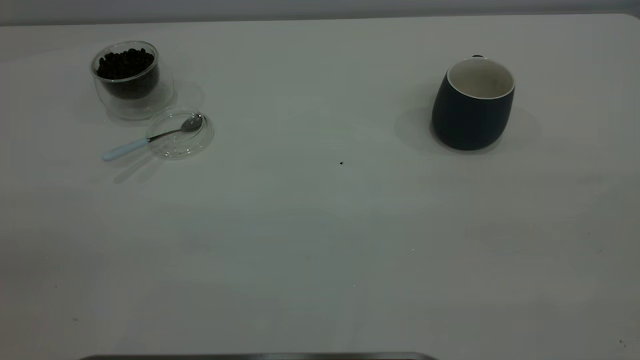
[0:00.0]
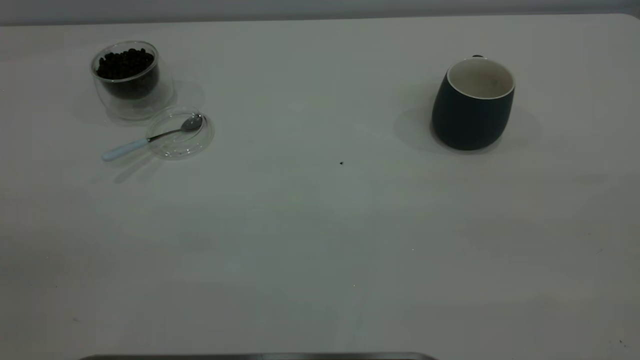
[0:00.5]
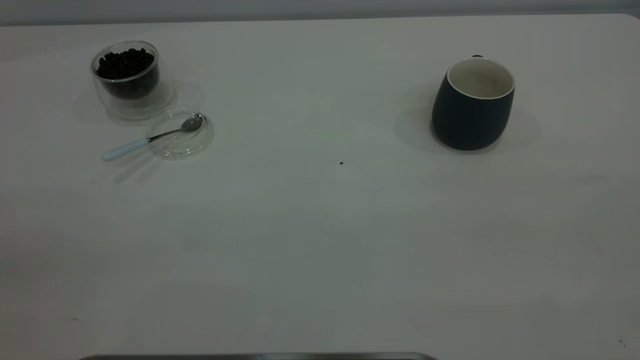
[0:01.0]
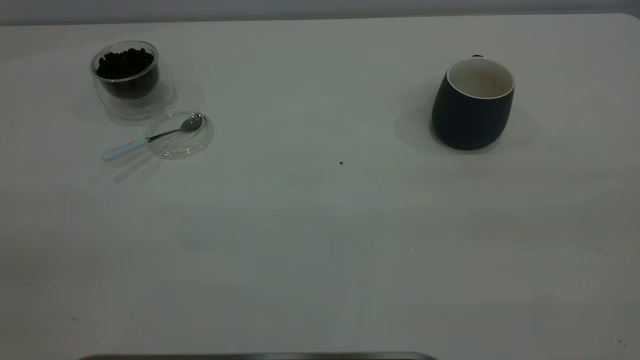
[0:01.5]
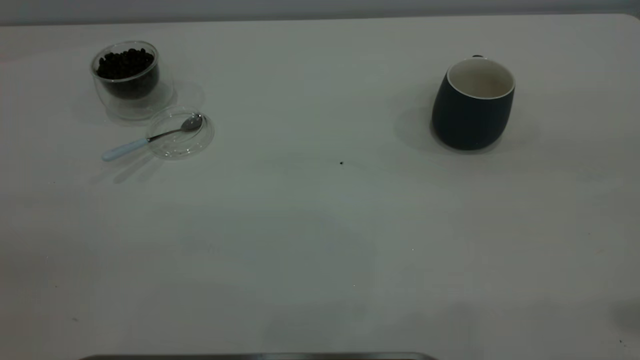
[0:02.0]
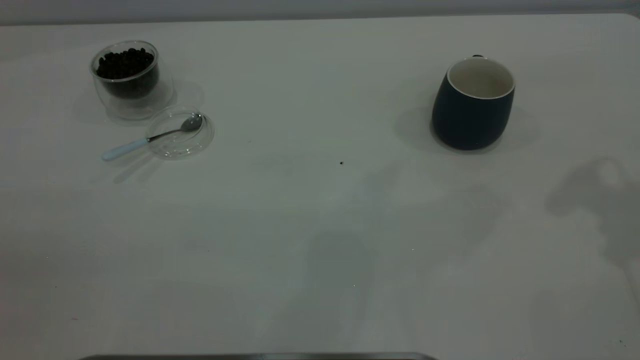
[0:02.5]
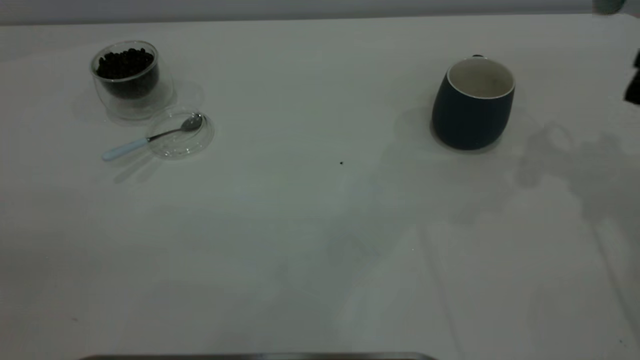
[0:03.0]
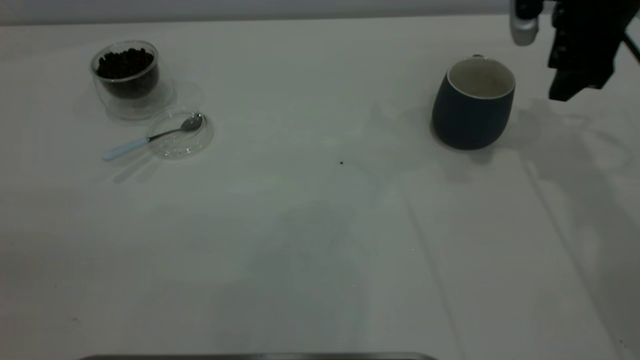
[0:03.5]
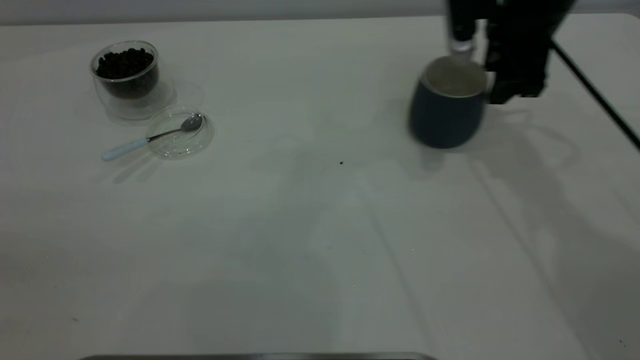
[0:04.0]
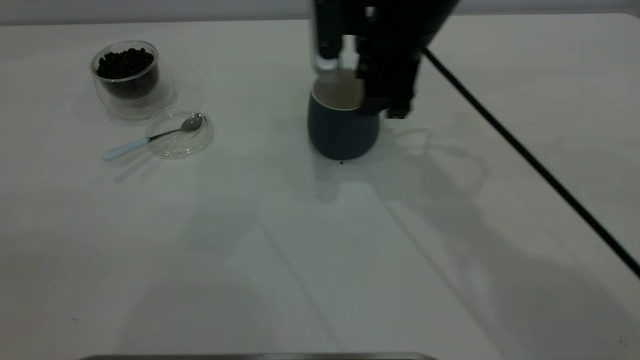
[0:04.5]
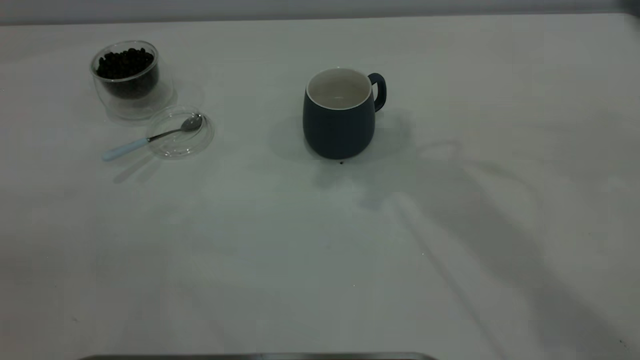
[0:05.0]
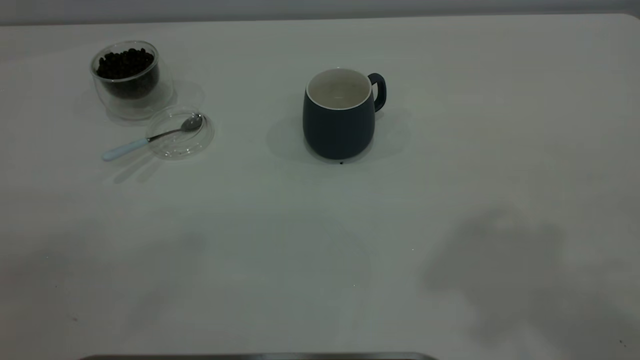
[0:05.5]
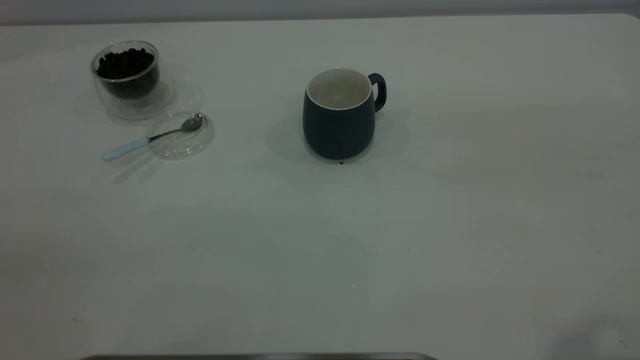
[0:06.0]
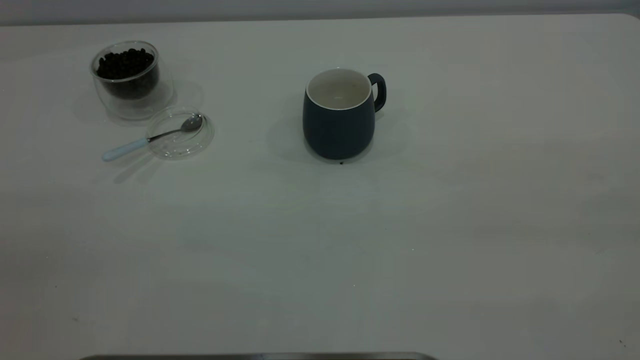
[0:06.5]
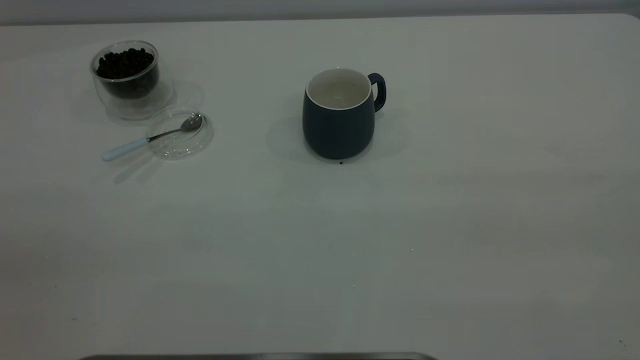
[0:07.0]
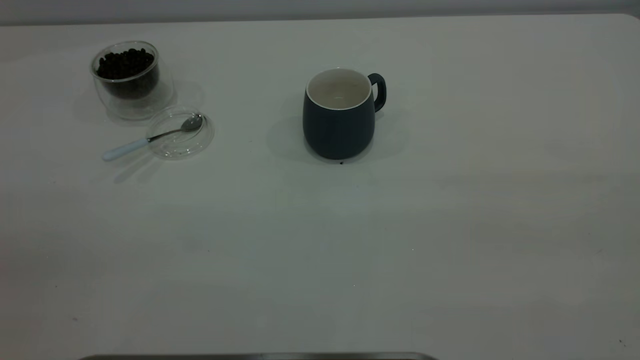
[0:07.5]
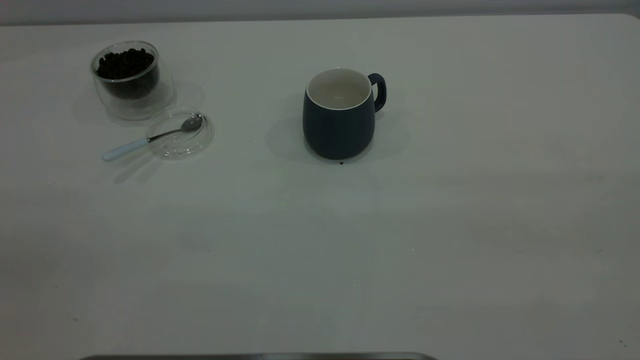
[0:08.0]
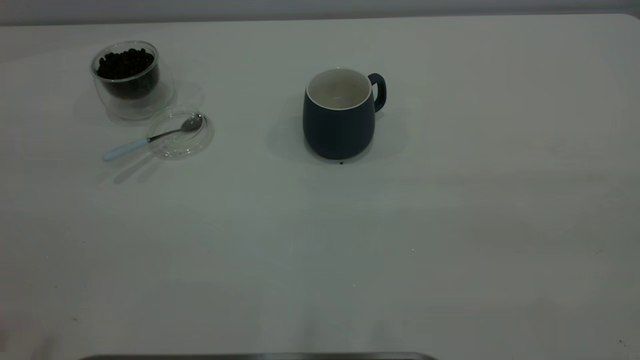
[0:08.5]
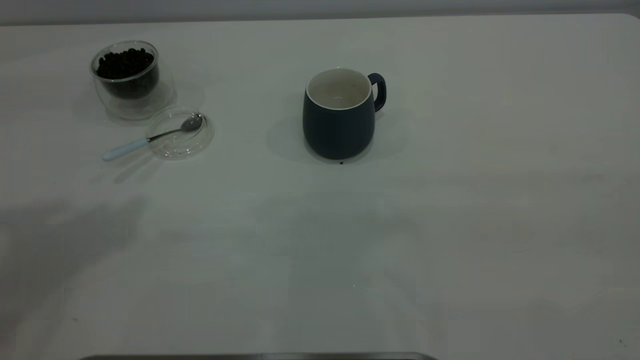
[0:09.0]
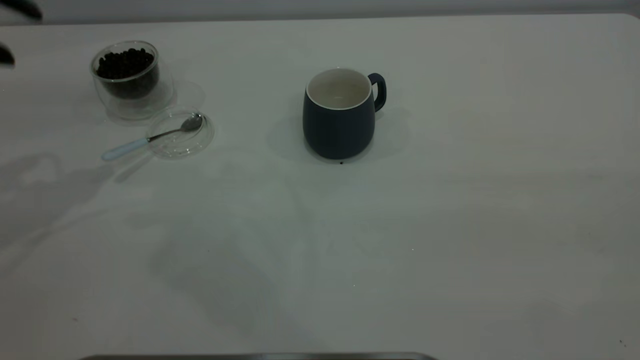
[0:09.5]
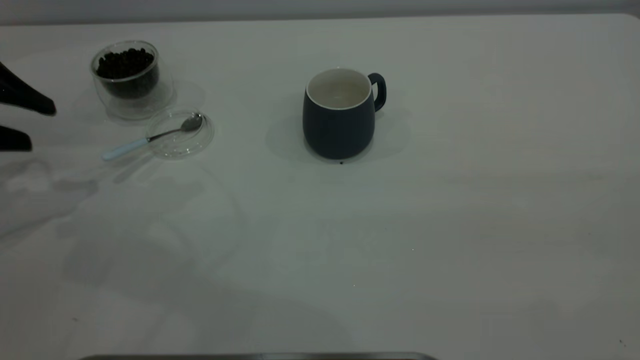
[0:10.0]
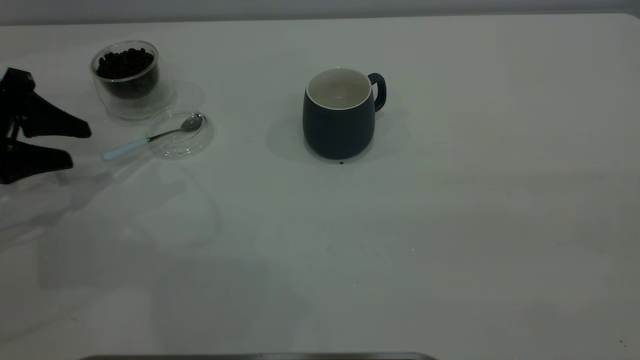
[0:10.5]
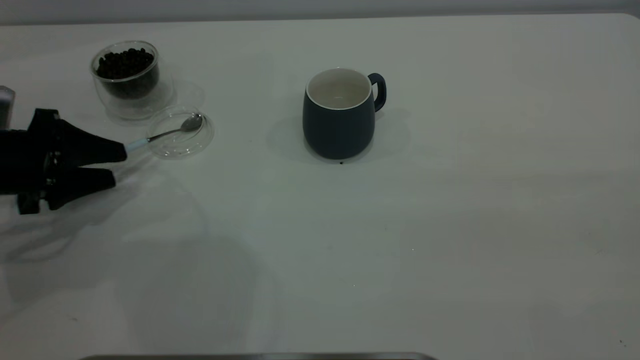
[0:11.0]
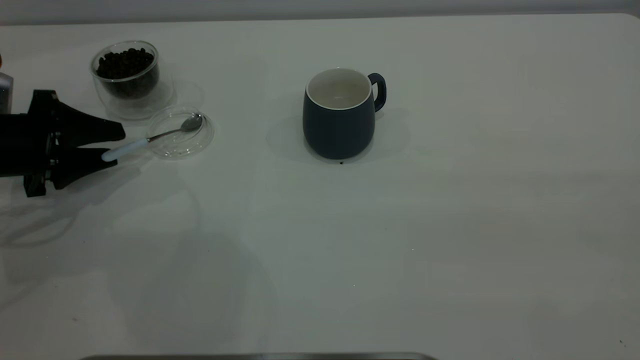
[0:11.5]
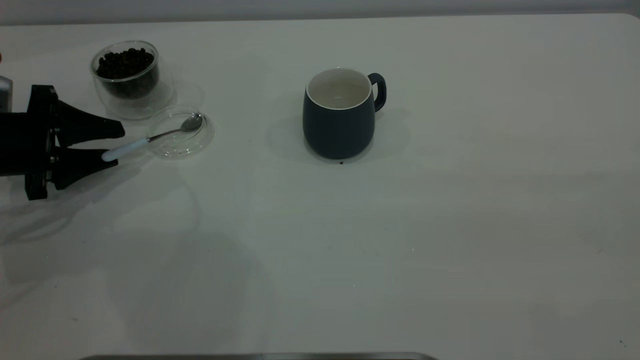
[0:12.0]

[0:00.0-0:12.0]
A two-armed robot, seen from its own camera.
Task of the whole recording: the right gripper place the grey cup in the center of the table, the left gripper take the blue spoon from the cup lid and scoop out the coffee beans from the coffee cup and put them into the grey cup, the left gripper put the spoon back into the cup lid.
Step, 0:00.0 to 0:04.5: Move the cup to the center of view.
0:02.0 to 0:04.0: The right gripper moves forward, downward and to the left, roughly 35 cm.
0:04.0 to 0:06.0: The right gripper goes roughly 40 cm backward and upward.
0:08.0 to 0:10.0: The left gripper heads forward and downward, covering approximately 35 cm.
0:10.0 to 0:12.0: The left gripper shifts some 10 cm downward.

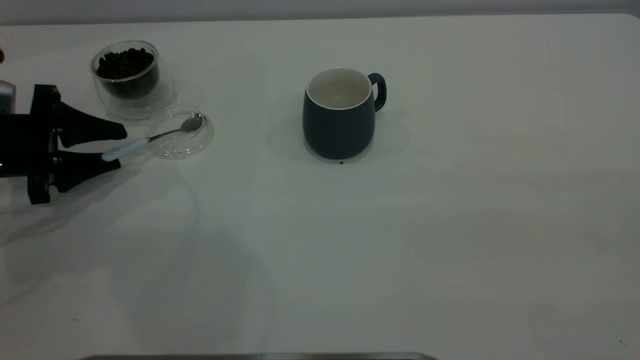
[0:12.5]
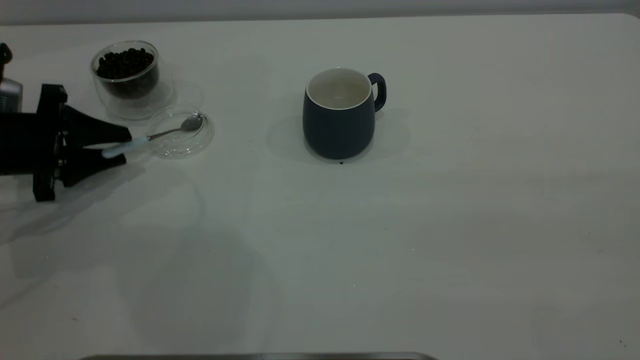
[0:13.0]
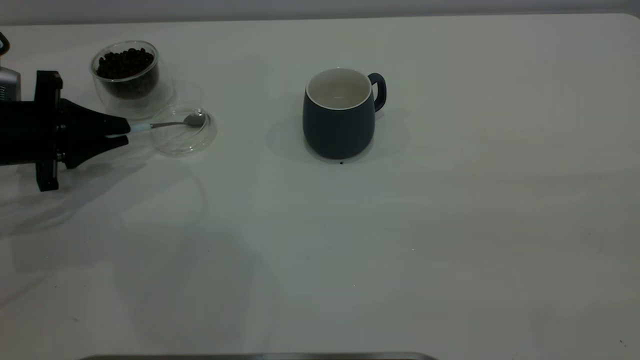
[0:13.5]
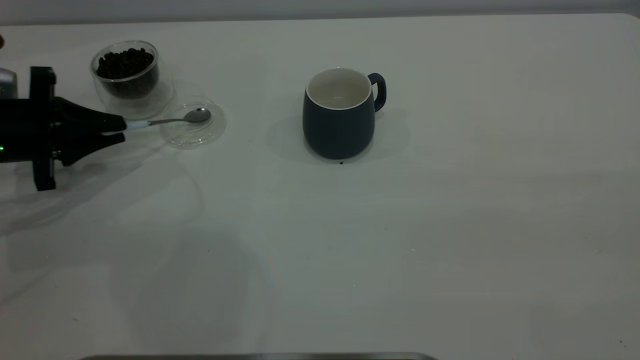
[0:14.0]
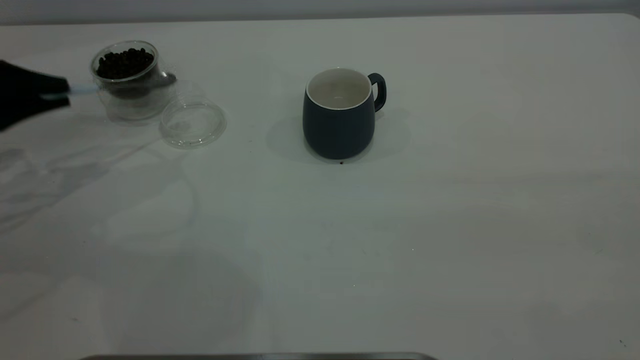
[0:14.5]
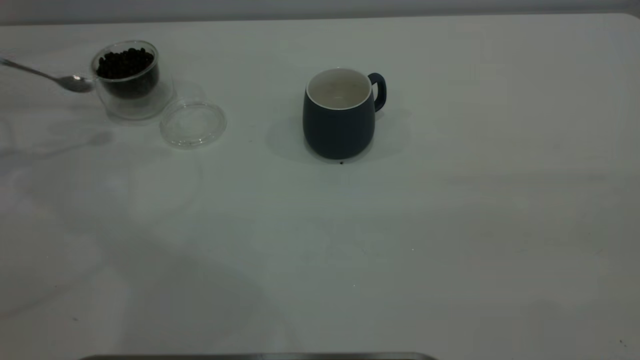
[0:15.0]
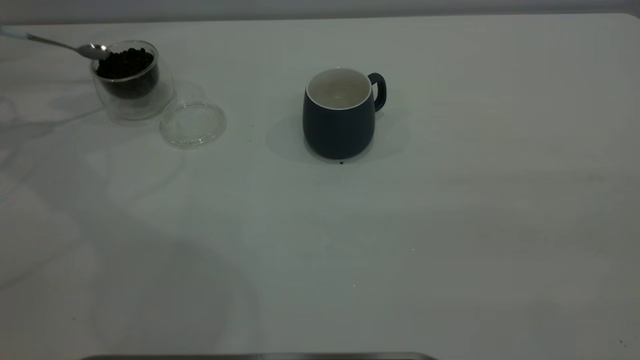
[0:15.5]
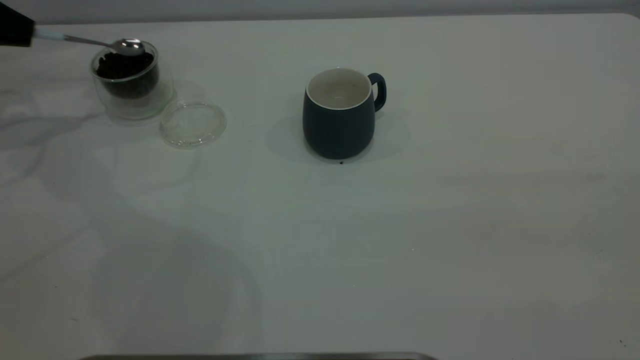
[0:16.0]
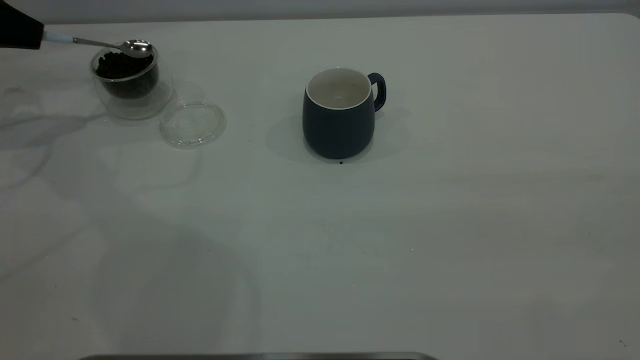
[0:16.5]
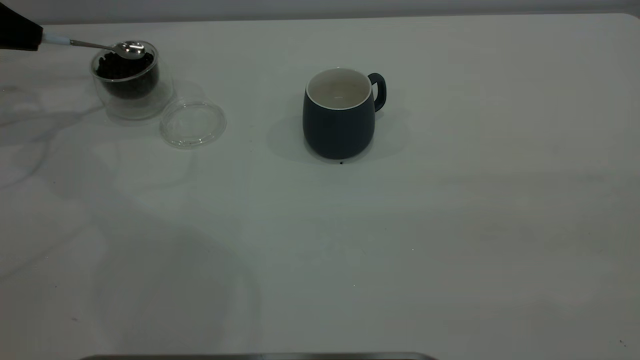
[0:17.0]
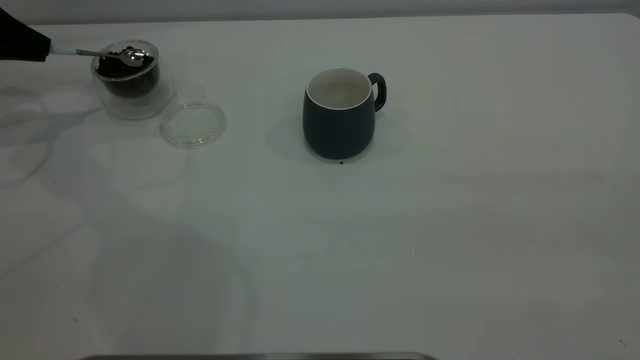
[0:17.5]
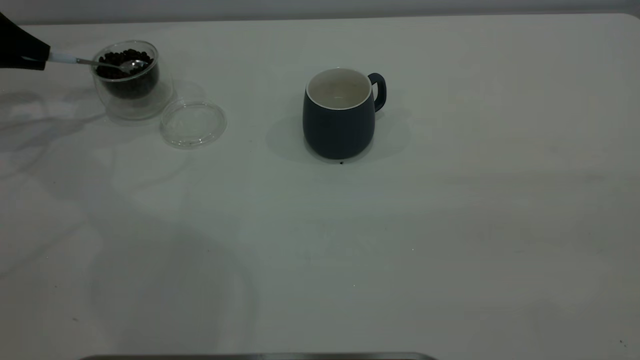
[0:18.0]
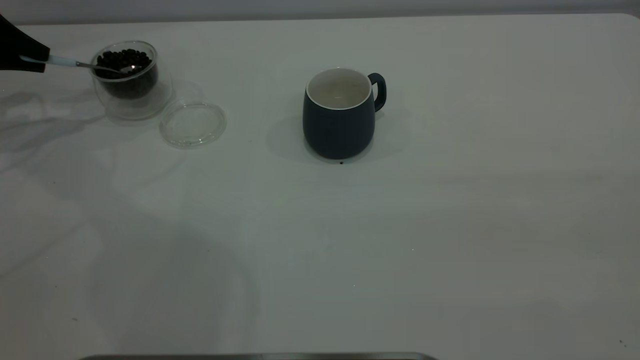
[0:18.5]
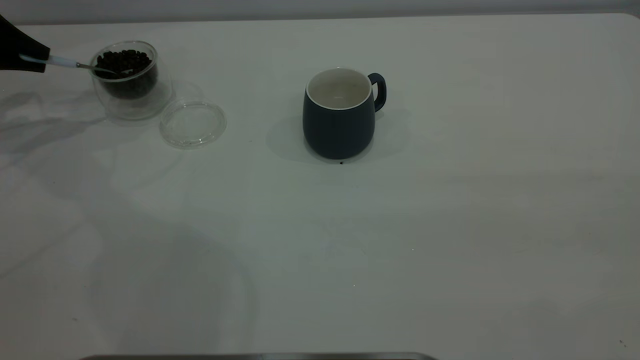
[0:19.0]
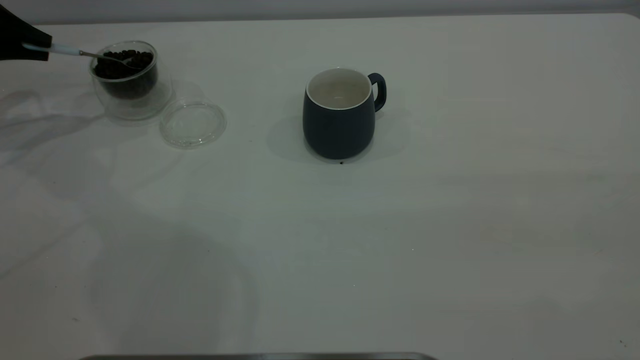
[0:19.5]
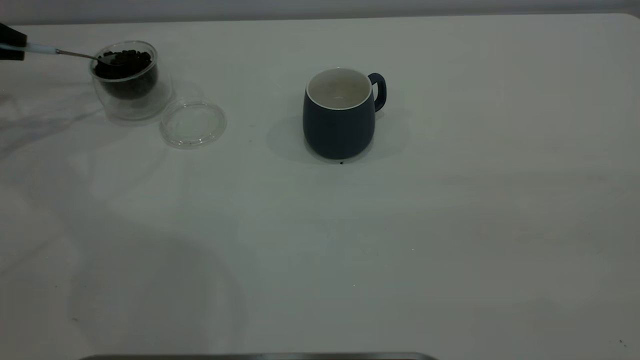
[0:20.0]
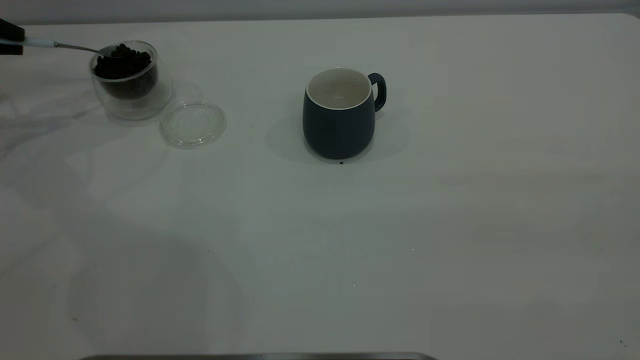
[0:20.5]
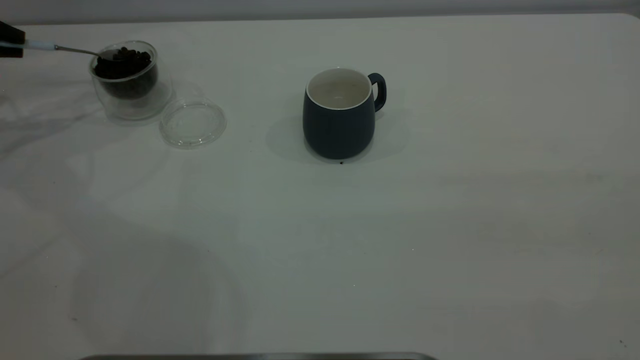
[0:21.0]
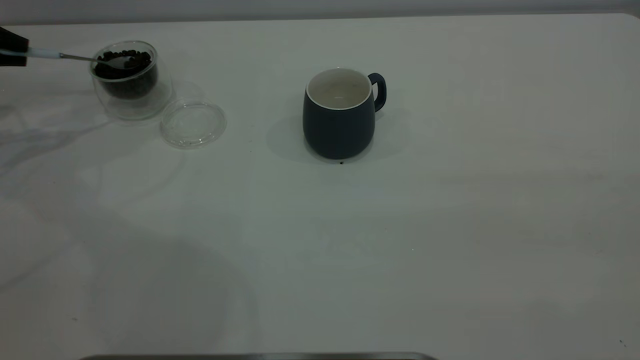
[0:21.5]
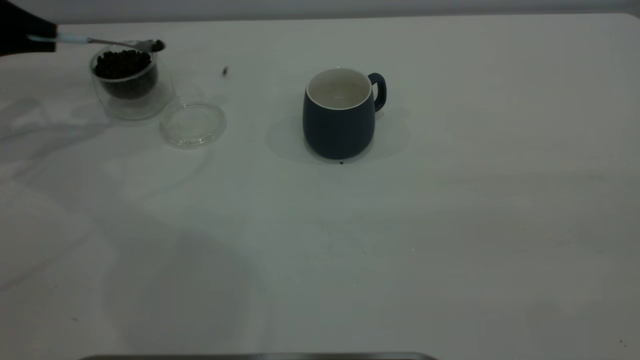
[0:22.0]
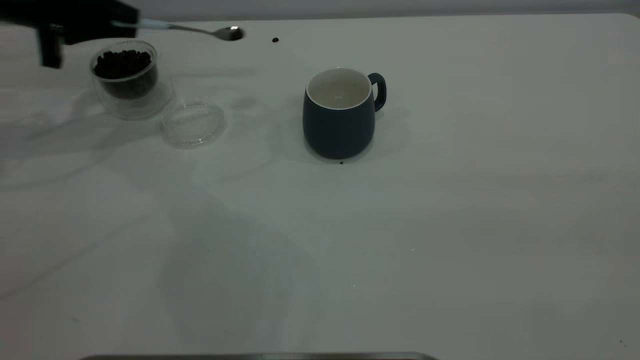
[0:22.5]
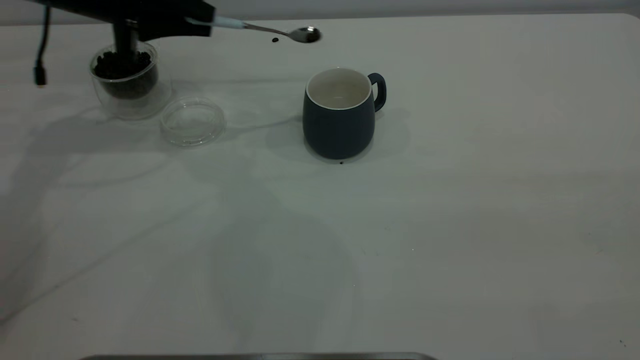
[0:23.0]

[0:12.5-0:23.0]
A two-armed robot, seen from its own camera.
Task of the whole recording: the right gripper place the grey cup in the center of the table, the left gripper take the blue spoon from the cup lid and scoop out the coffee beans from the coffee cup and put them into the grey cup, the left gripper put the spoon back into the cup lid.
Step, 0:12.5 to 0:14.5: Pick up the spoon.
0:12.5 to 0:14.5: The left gripper goes approximately 10 cm upward, and closes up.
0:14.5 to 0:16.5: The left gripper heads forward, covering some 10 cm.
0:21.0 to 0:23.0: The left gripper goes approximately 20 cm to the right.
